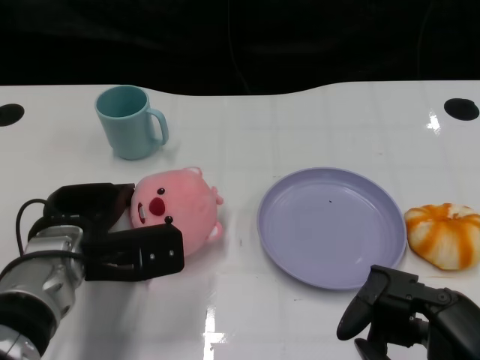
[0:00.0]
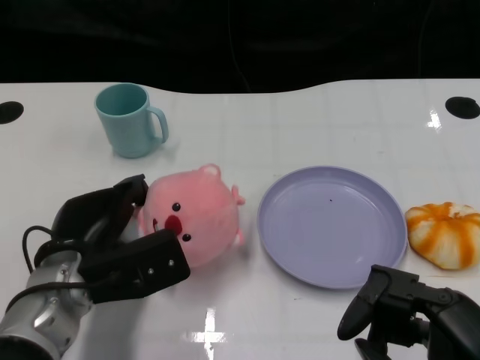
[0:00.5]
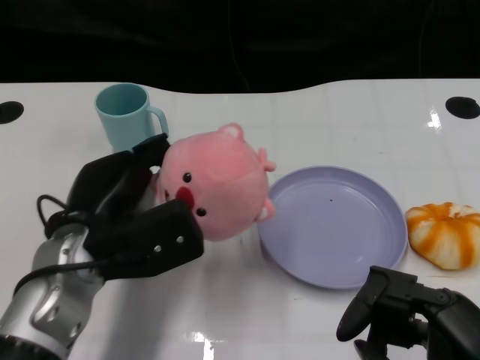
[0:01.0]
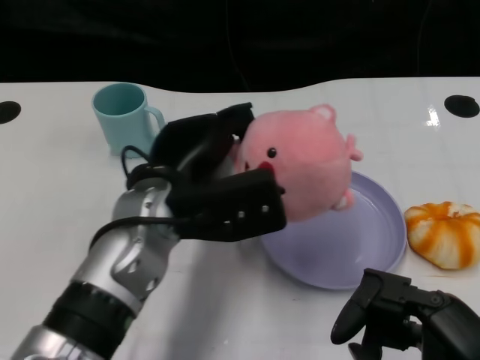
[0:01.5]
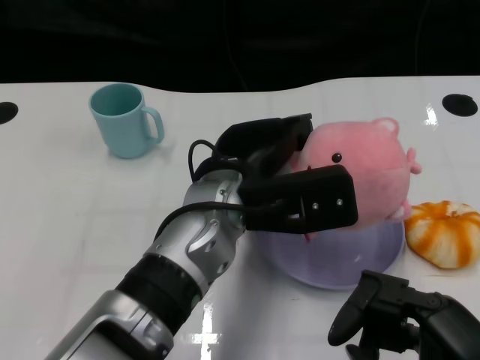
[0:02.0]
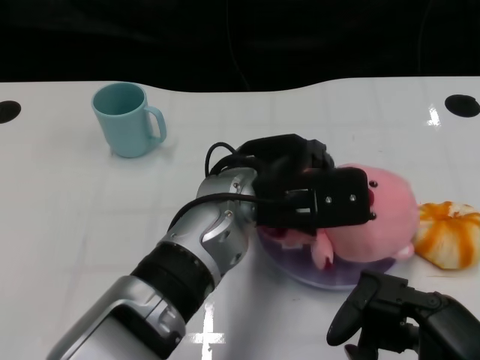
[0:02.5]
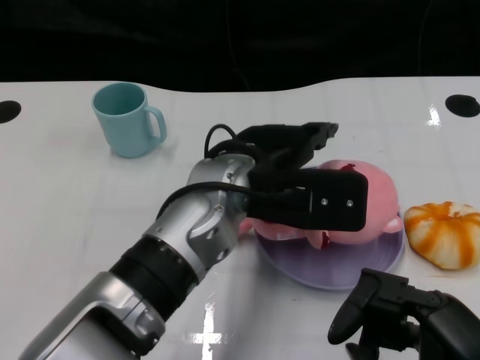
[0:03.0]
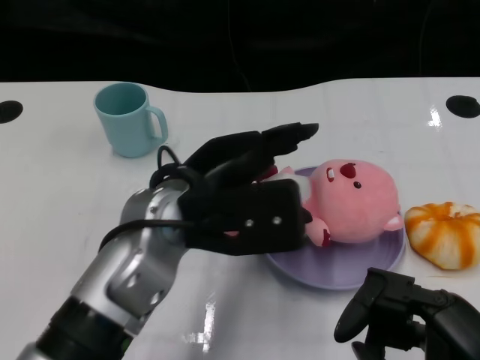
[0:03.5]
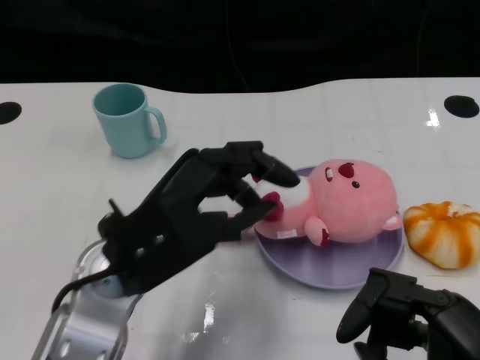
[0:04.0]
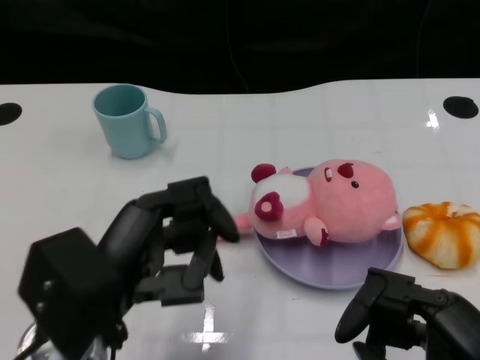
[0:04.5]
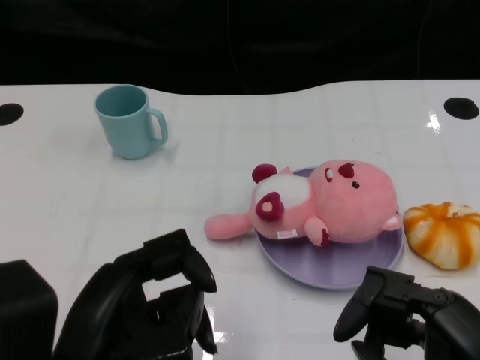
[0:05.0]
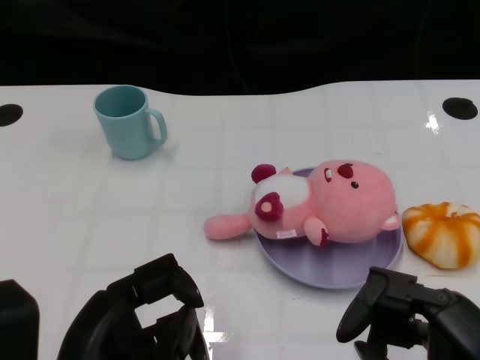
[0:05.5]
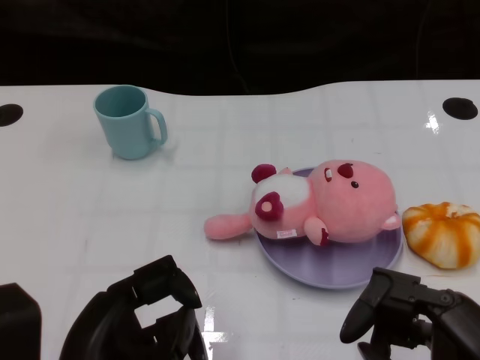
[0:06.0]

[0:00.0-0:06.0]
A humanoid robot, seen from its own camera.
Task of the whole recording: Pick up the doll on one side of the plate and place it into the plate.
Step, 0:01.0 to 0:02.5: Place the pink doll into the plate with the left gripper.
0:00.0 to 0:02.0: The left hand heads to the right and upward, covering approximately 15 cm.
0:02.0 to 0:04.0: The left hand shifts approximately 10 cm to the left and backward.
0:04.0 to 0:06.0: The left hand heads backward and to the left, covering about 10 cm.

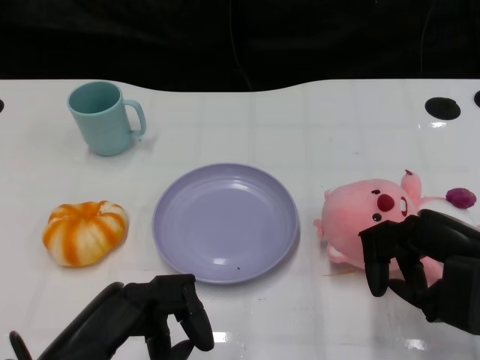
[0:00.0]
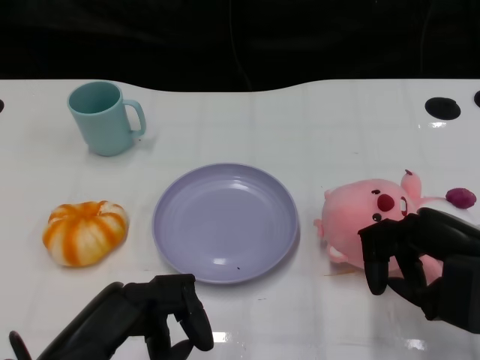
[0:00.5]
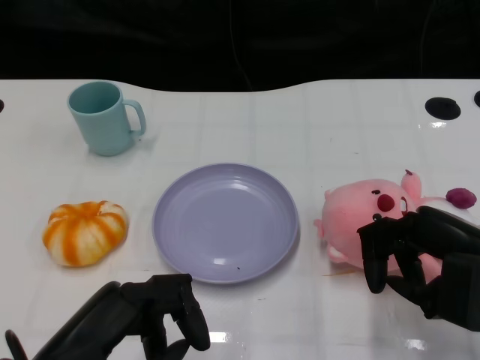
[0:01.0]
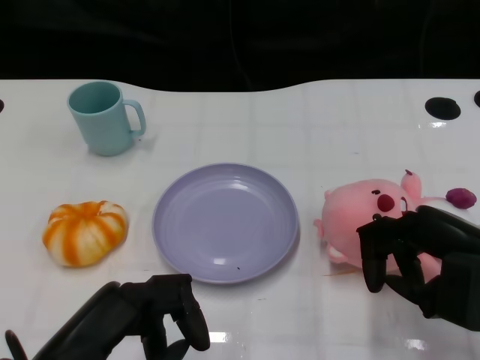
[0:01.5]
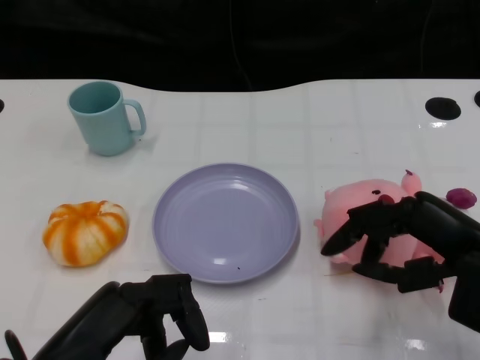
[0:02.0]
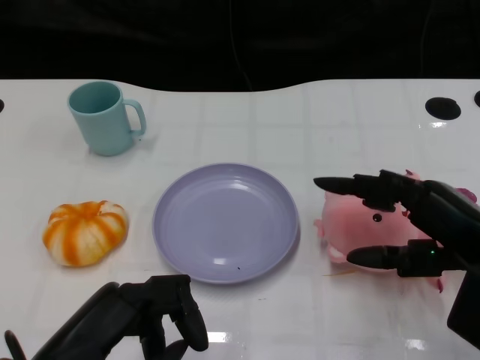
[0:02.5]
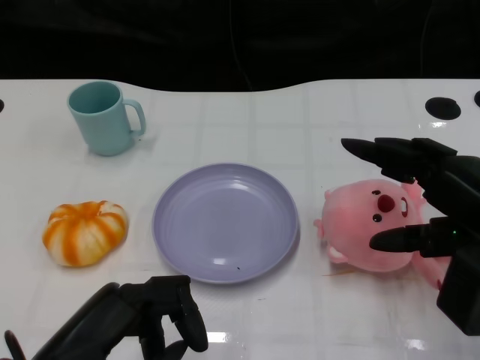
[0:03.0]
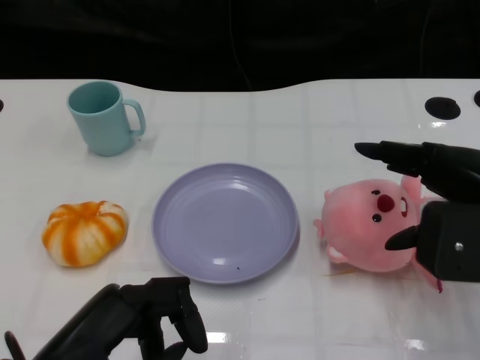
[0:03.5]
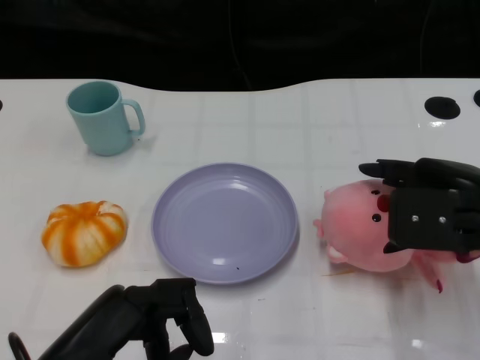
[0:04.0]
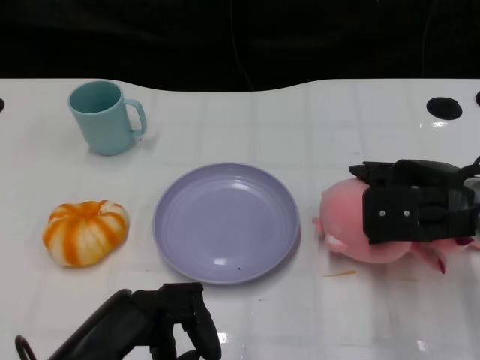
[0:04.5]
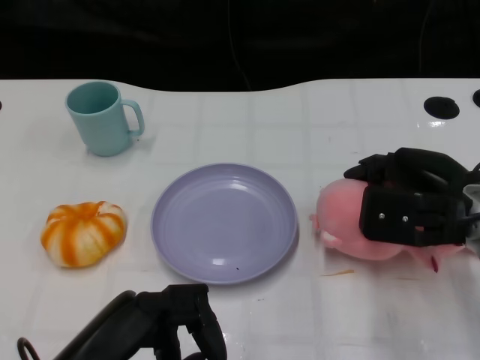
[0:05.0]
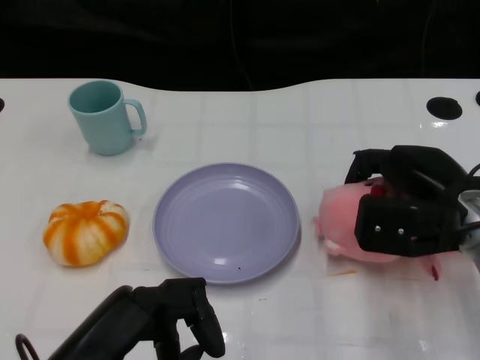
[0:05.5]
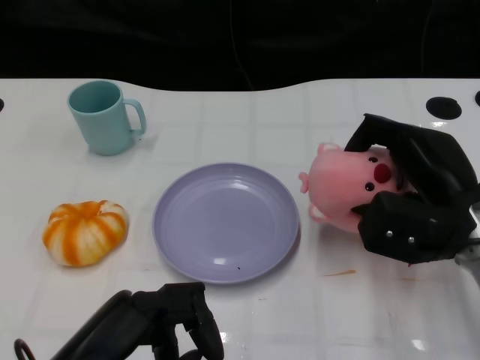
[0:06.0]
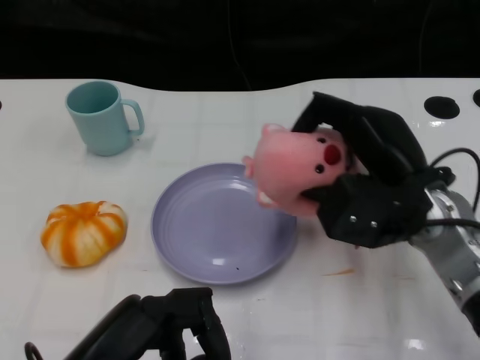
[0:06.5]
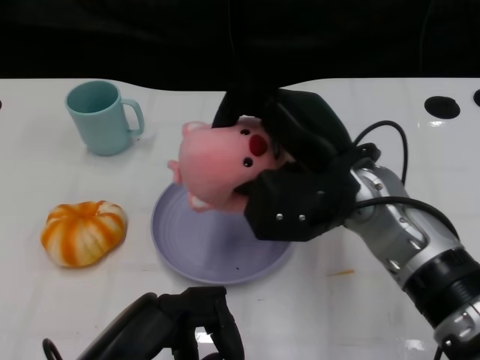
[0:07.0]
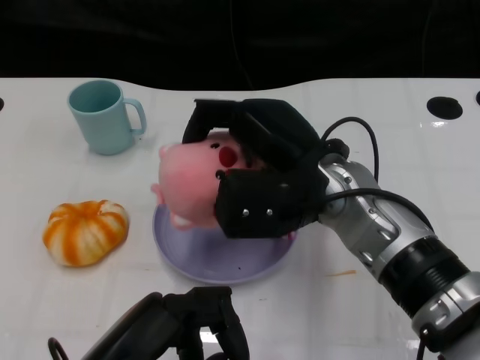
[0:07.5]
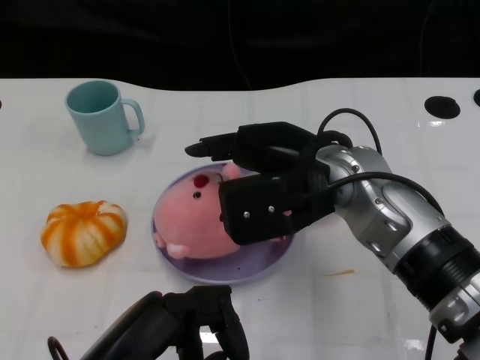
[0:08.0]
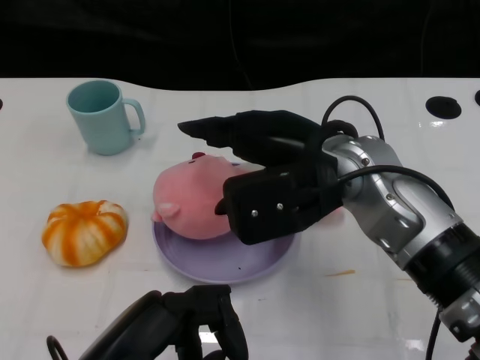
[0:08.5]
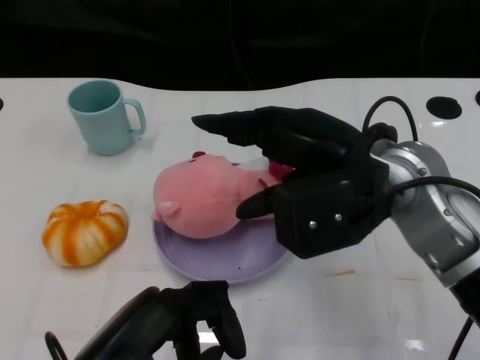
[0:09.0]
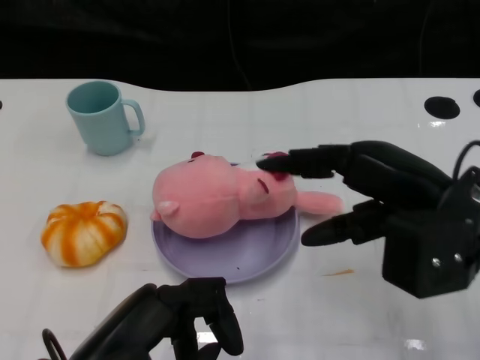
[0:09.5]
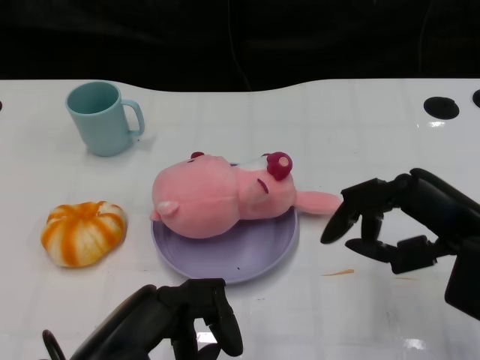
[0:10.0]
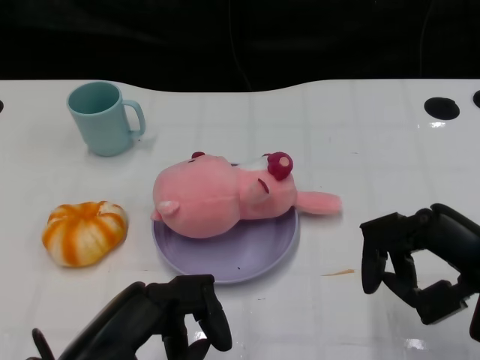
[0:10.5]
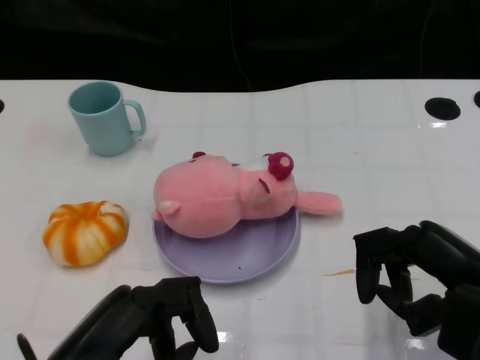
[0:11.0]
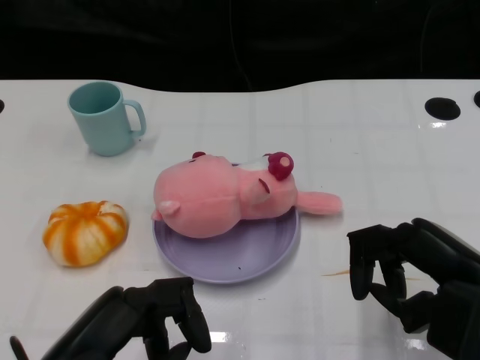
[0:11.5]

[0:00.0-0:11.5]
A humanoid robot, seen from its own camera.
Task of the whole recording: Pick up the doll on the other side of the plate and place it into the plate.
Step, 0:01.5 to 0:06.0: Grasp the pink doll with the right gripper.
Step, 0:06.5 to 0:08.0: Place the pink doll into the plate with the right gripper.
0:02.0 to 0:04.0: The right hand is displaced forward by about 5 cm.
0:04.0 to 0:06.0: The right hand heads downward, covering roughly 5 cm.
0:06.0 to 0:07.5: The right hand travels to the left by approximately 15 cm.
0:07.5 to 0:09.5: The right hand shifts roughly 10 cm to the right.
0:09.5 to 0:11.5: The right hand heads downward and backward, covering roughly 10 cm.

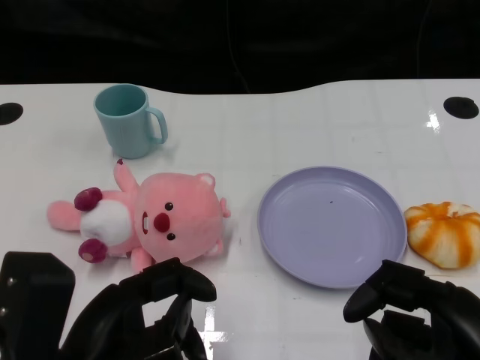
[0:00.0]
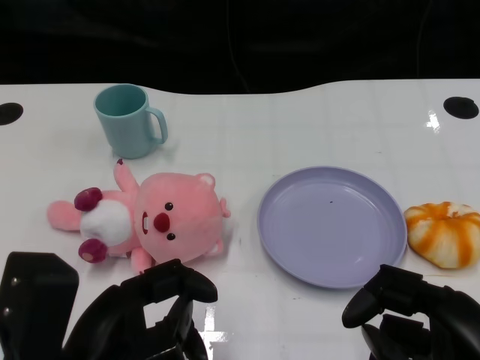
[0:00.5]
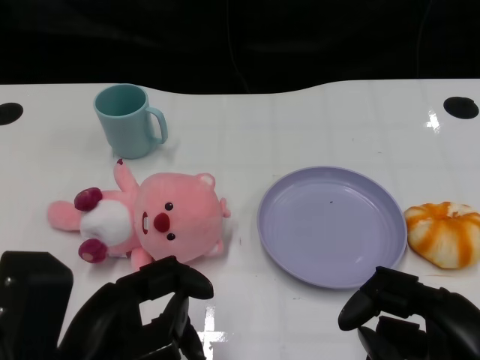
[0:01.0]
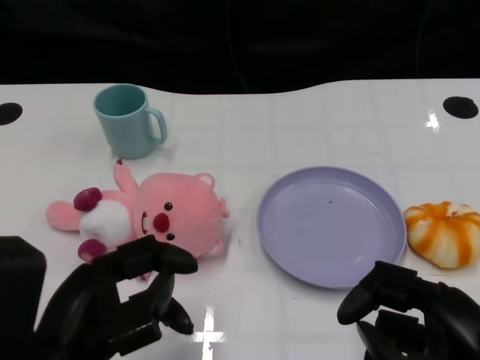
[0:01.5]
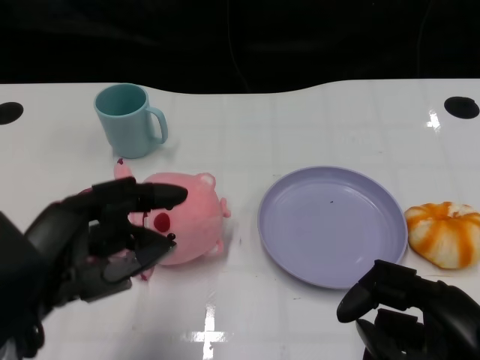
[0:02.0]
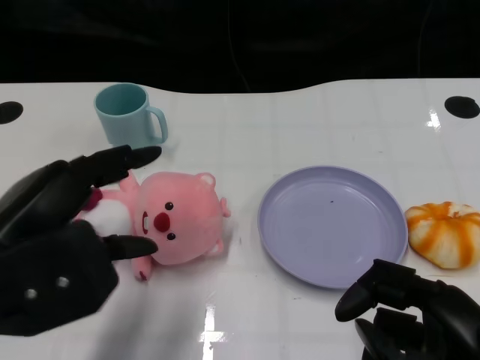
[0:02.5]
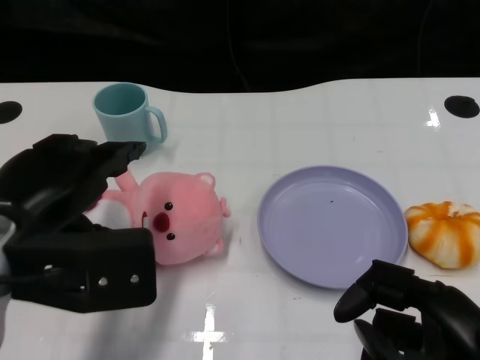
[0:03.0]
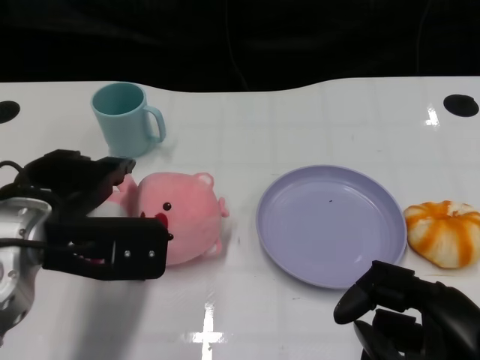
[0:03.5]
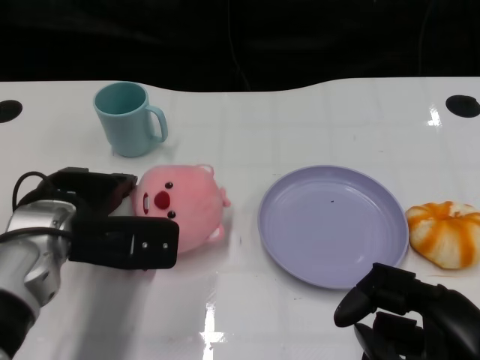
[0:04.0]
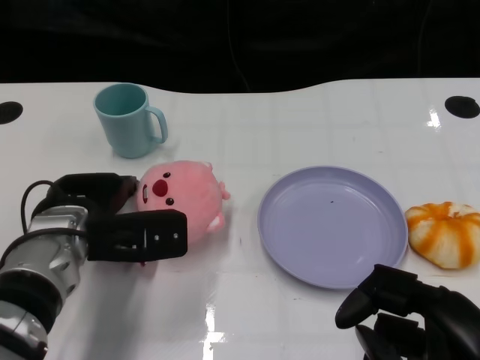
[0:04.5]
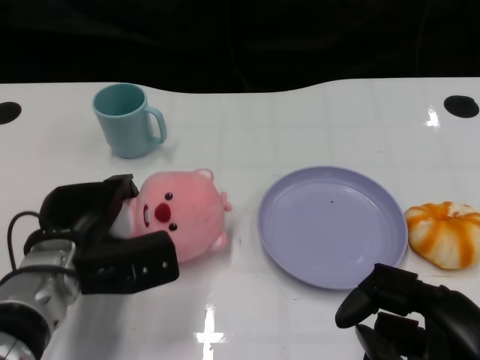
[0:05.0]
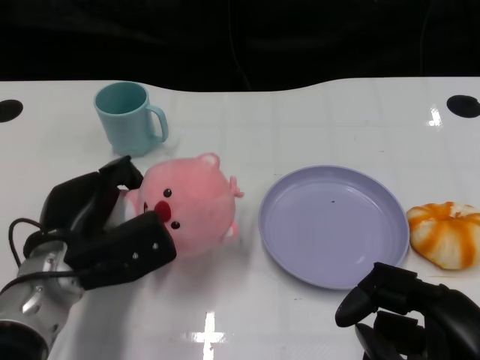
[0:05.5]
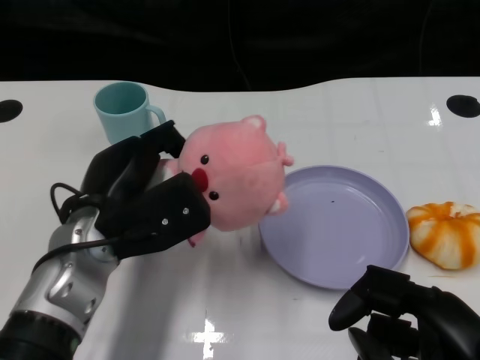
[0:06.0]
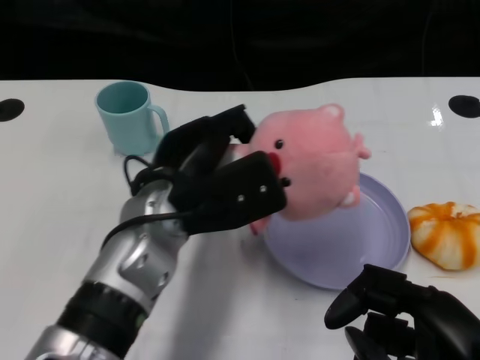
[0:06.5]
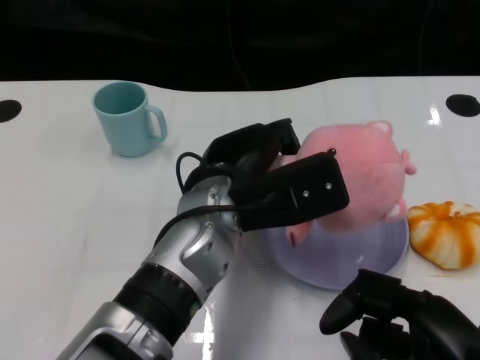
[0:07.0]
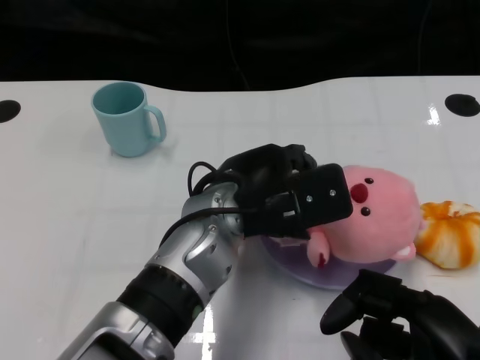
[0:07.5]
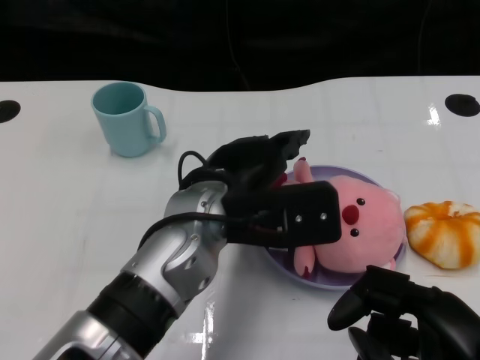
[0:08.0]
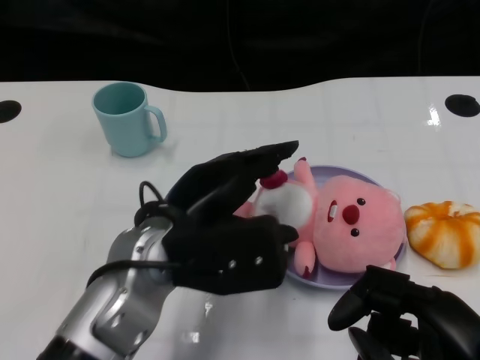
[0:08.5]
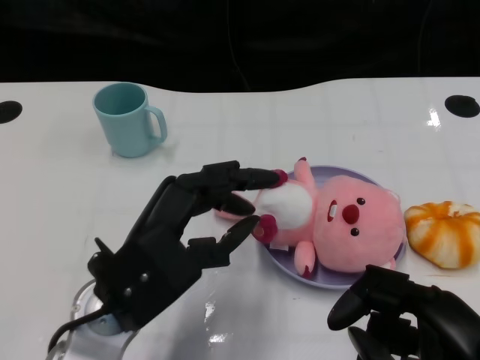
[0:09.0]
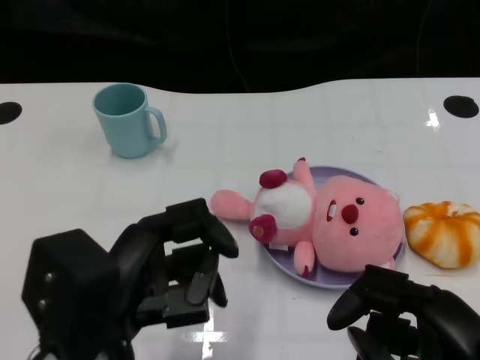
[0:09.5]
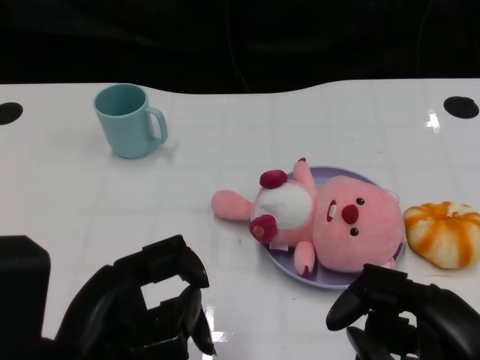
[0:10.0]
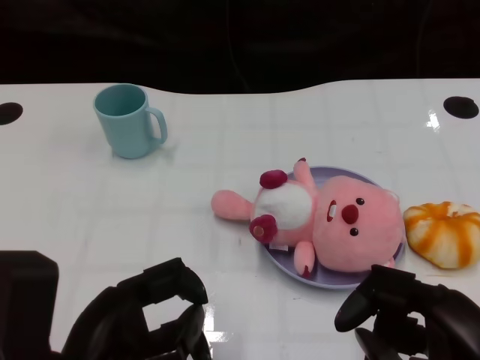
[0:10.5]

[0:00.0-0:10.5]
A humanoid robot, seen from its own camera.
Task of the whole recording: Pick up the doll on one side of the plate and place it into the plate.
Step, 0:01.0 to 0:05.0: Grasp the pink doll with the left gripper.
Step, 0:06.0 to 0:07.5: Place the pink doll into the plate with the left gripper.
0:02.0 to 0:04.0: The left hand shifts roughly 15 cm forward.
0:04.0 to 0:06.5: The left hand heads to the right, covering roughly 10 cm.
0:08.5 to 0:10.5: The left hand moves backward and to the left, about 15 cm.
